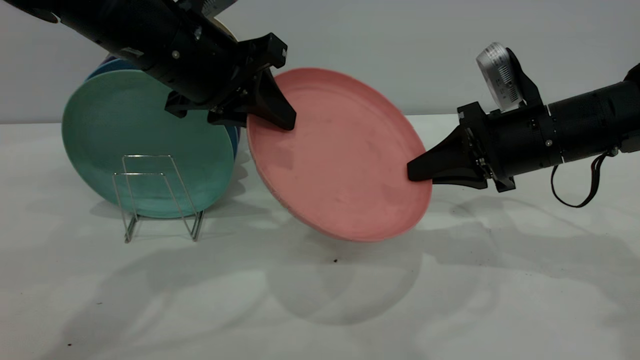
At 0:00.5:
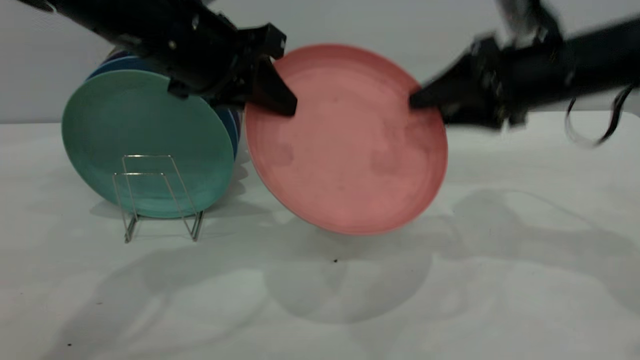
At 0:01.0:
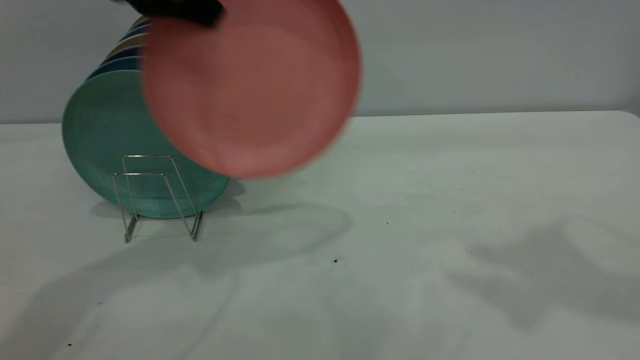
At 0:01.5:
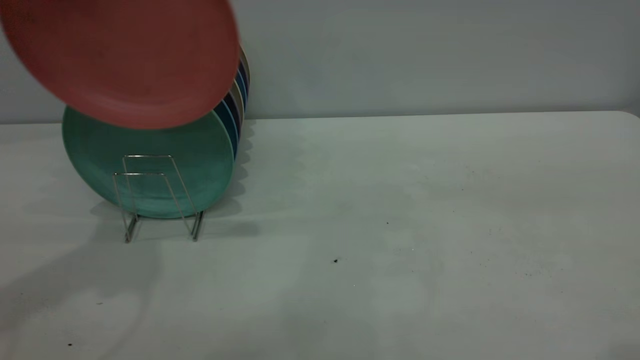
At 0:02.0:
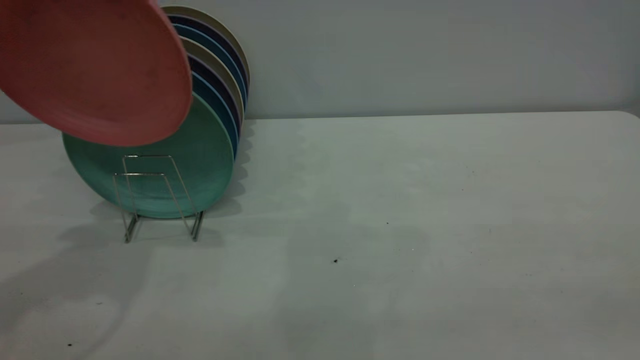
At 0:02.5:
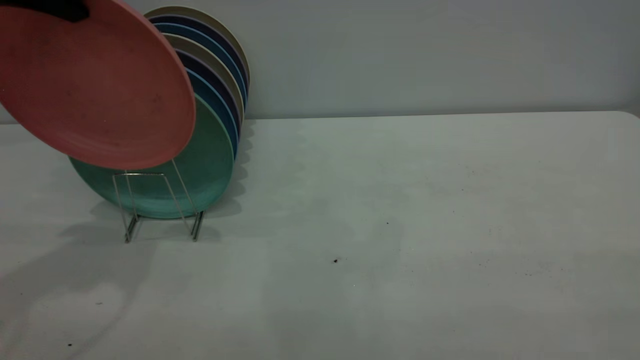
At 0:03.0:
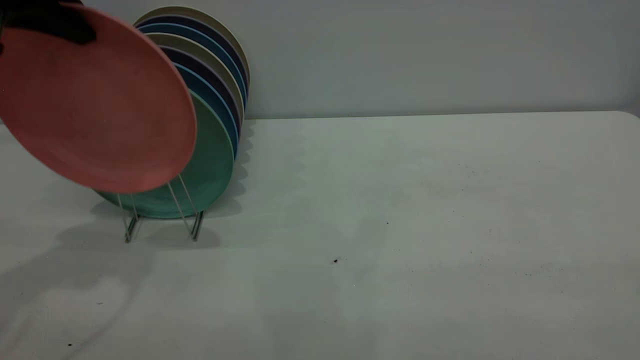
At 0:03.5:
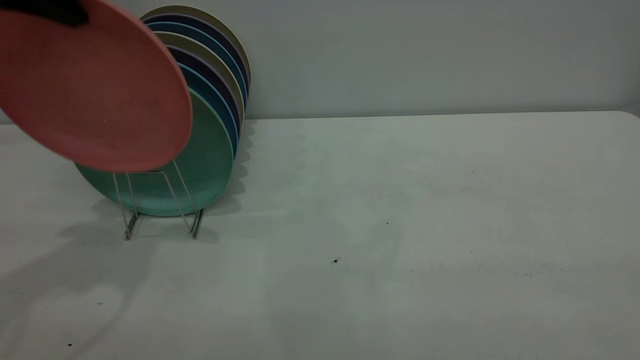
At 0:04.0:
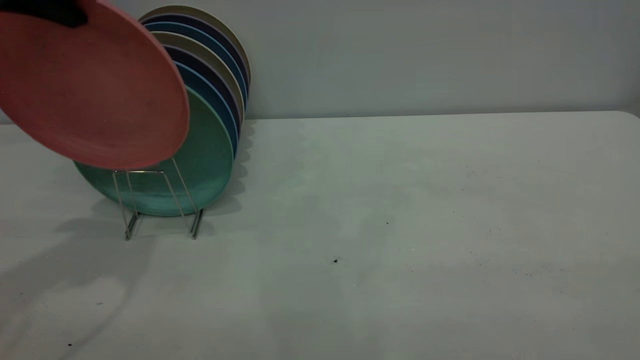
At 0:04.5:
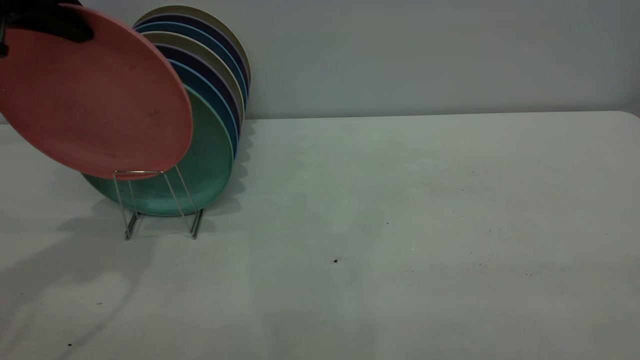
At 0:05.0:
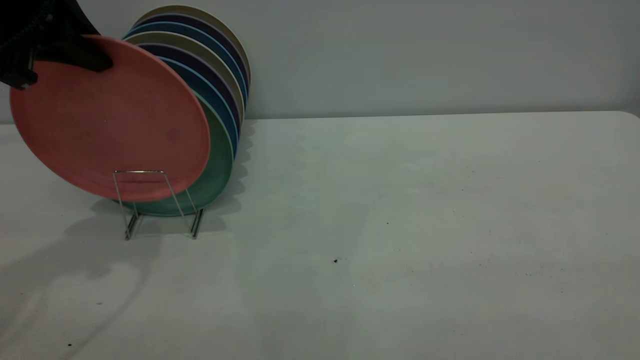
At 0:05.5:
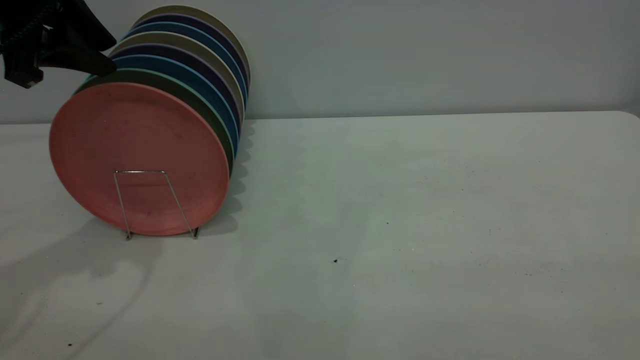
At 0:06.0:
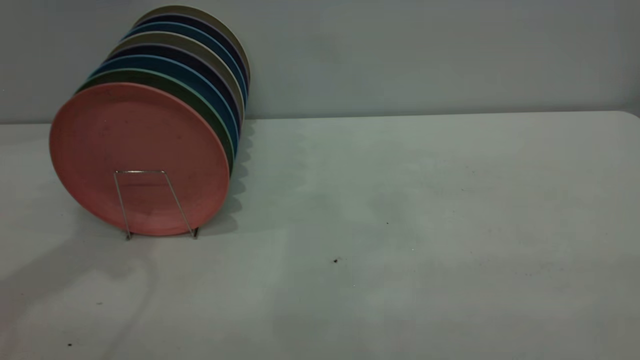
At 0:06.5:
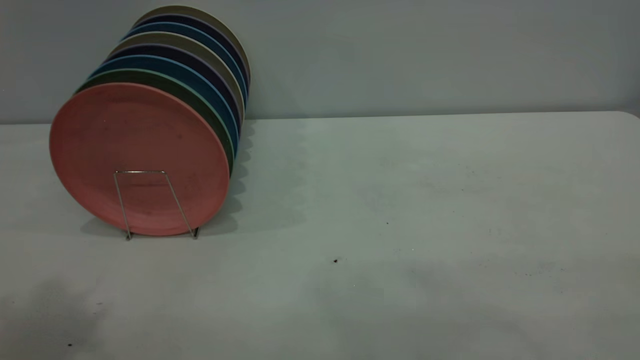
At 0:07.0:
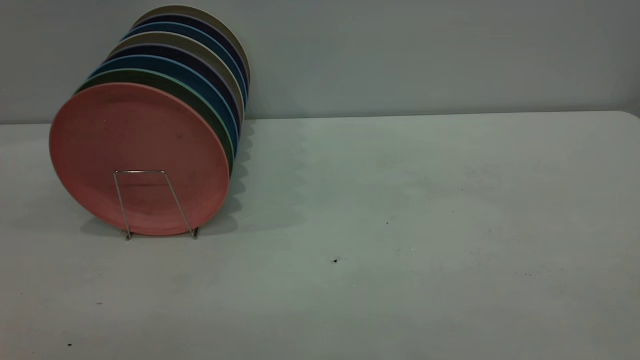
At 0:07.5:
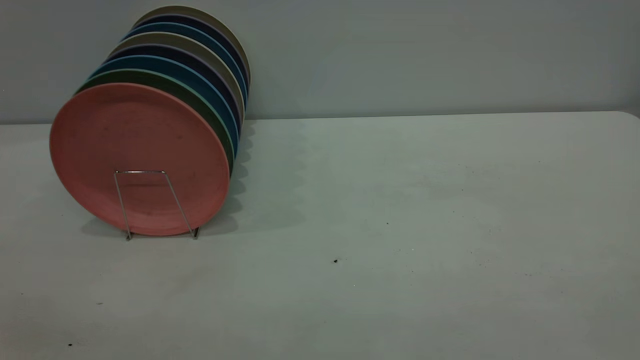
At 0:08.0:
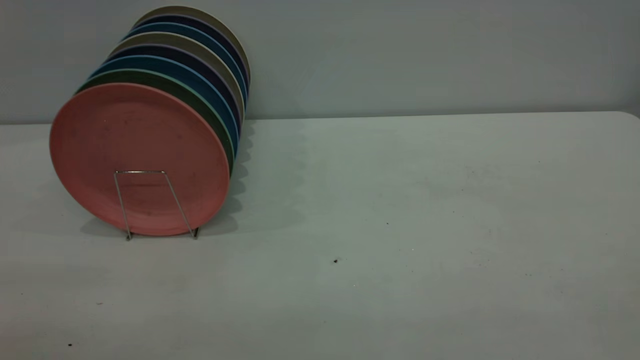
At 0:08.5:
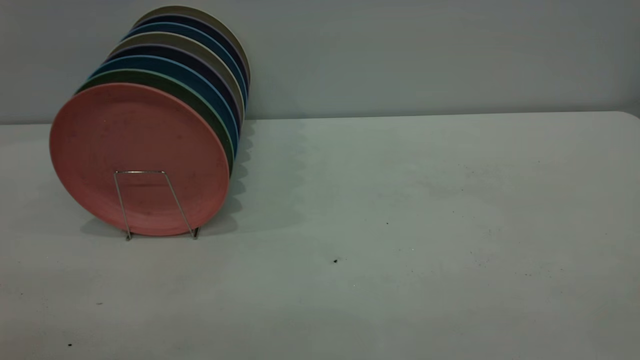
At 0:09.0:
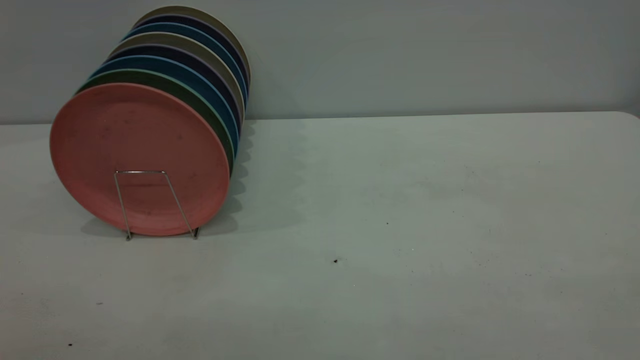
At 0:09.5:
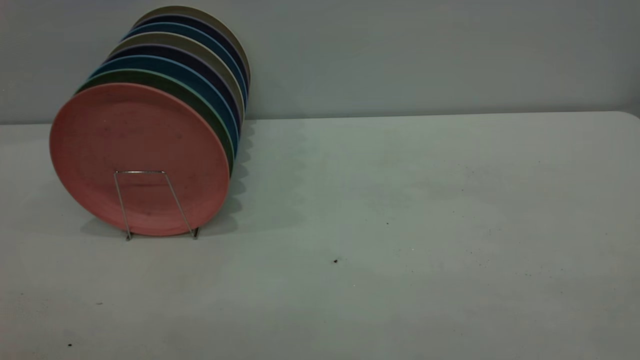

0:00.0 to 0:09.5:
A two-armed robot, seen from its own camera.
Task of the whole recording: the right gripper grasp the pink plate, the right gripper pass the pink plate to the left gripper, and the left gripper place the pink plate on the plate rack.
Step, 0:00.0 to 0:01.5: Pass the plate from the right gripper to the left gripper.
Step, 0:02.0 to 0:05.5: Place the plate on the shelf.
0:00.0 to 0:02.0: The left gripper travels upward and to the left by some 20 cm; the right gripper goes approximately 40 cm backward and upward, and opens its fingers.
0:02.0 to 0:04.0: The grippers move only a little.
0:04.0 to 0:05.5: The left gripper opens up.
0:05.5 to 0:07.5: The left gripper travels backward by approximately 35 cm.
